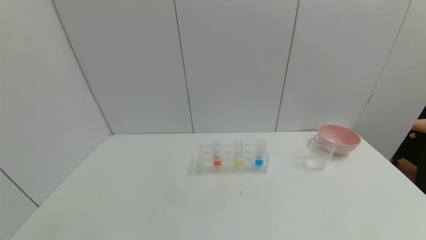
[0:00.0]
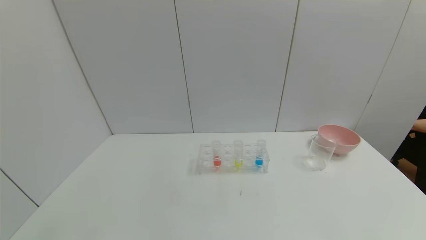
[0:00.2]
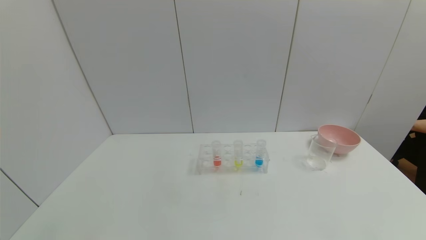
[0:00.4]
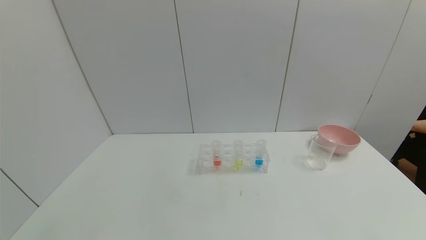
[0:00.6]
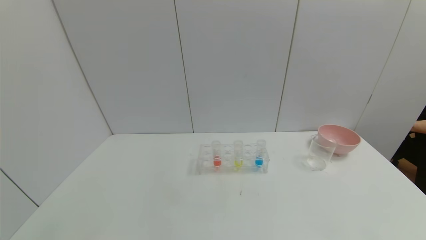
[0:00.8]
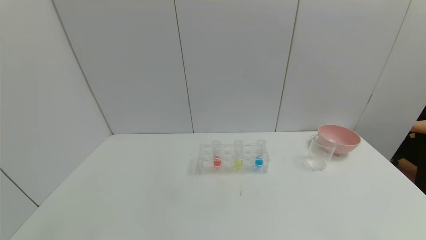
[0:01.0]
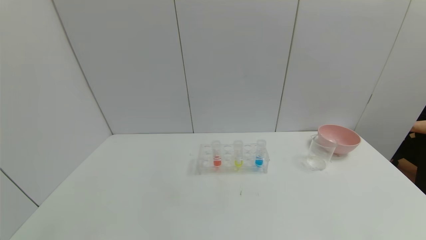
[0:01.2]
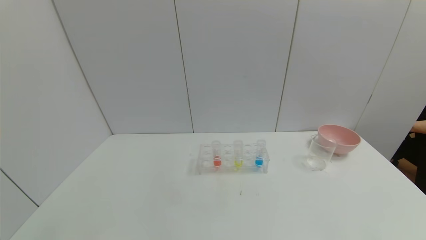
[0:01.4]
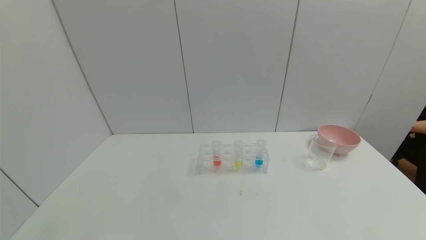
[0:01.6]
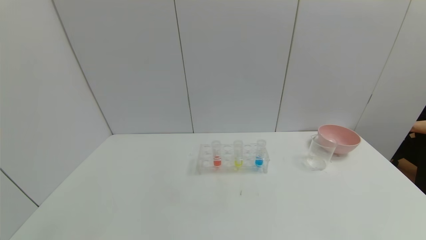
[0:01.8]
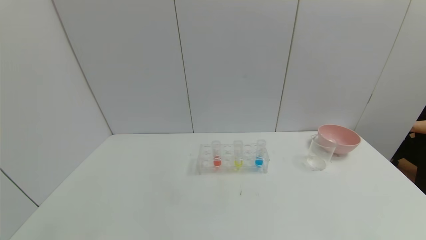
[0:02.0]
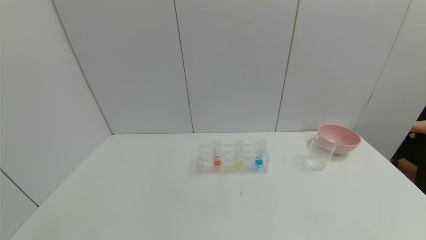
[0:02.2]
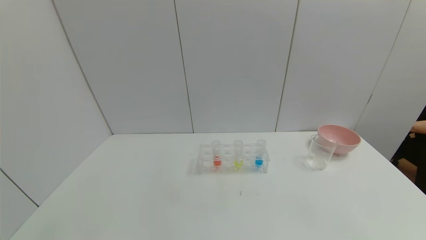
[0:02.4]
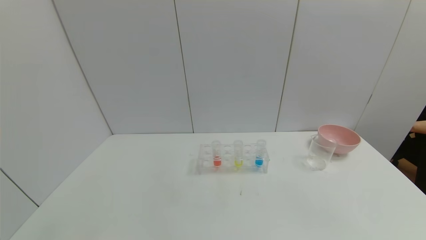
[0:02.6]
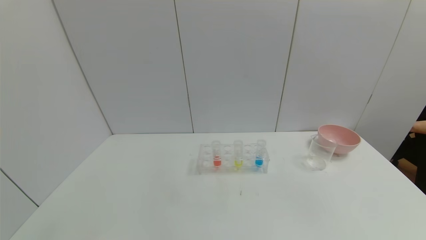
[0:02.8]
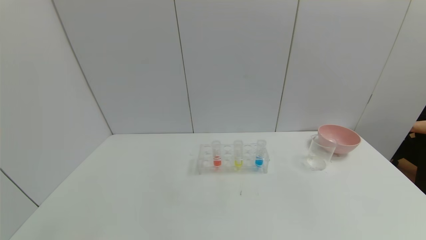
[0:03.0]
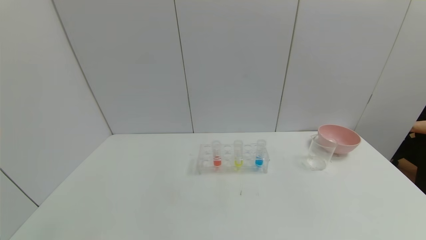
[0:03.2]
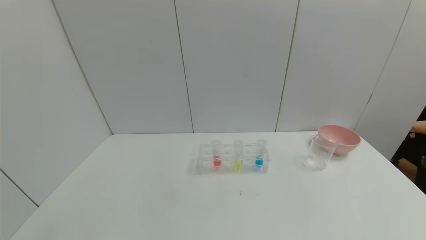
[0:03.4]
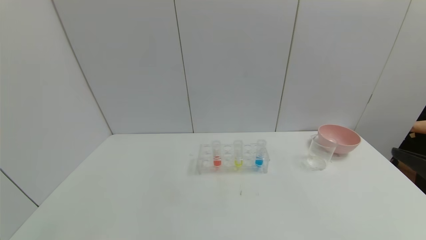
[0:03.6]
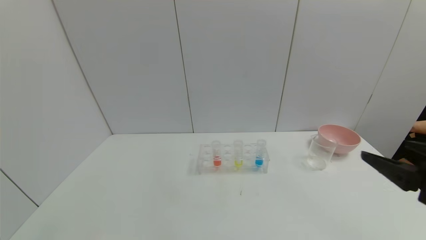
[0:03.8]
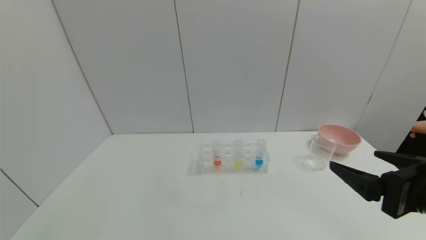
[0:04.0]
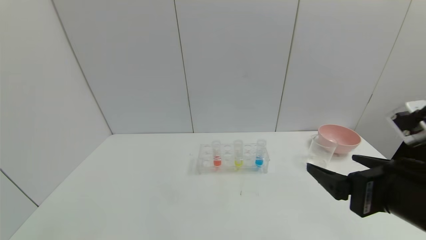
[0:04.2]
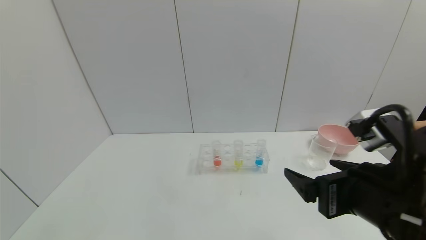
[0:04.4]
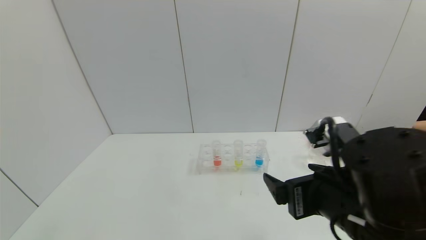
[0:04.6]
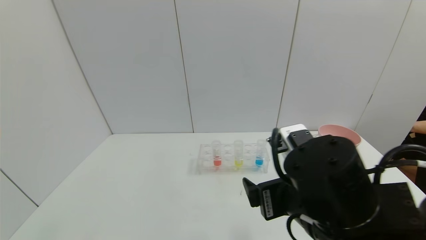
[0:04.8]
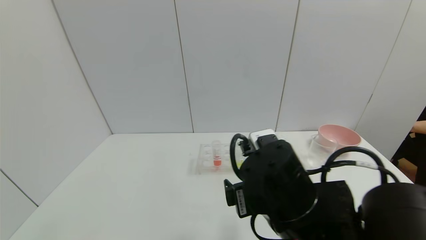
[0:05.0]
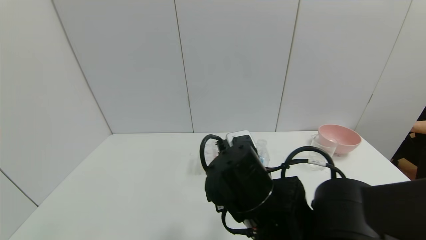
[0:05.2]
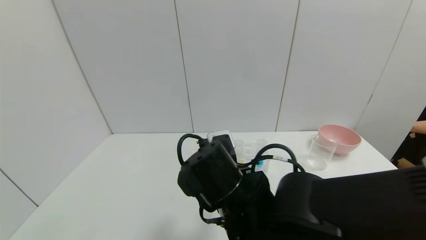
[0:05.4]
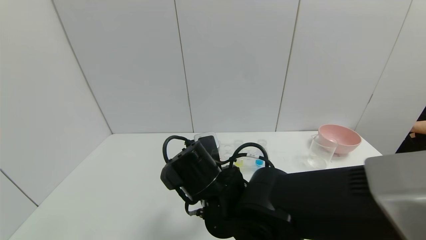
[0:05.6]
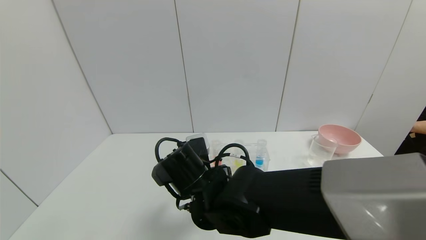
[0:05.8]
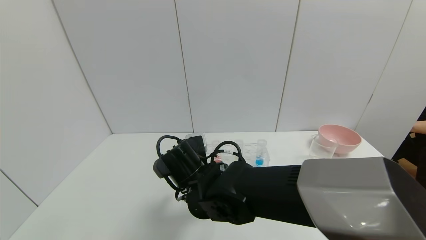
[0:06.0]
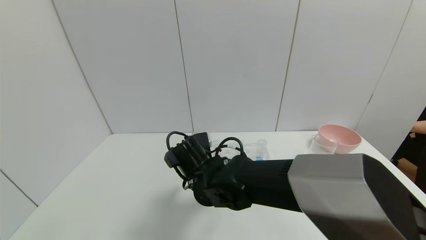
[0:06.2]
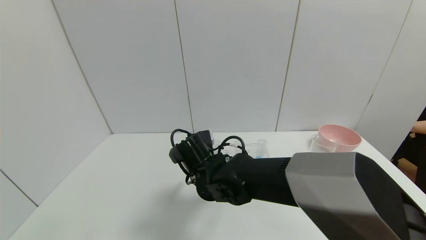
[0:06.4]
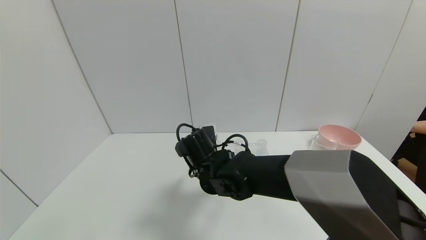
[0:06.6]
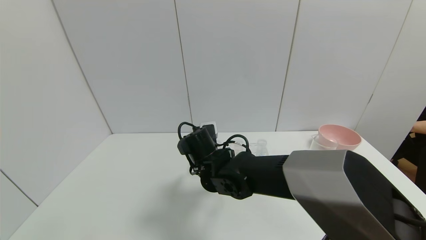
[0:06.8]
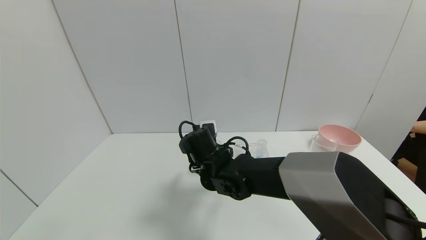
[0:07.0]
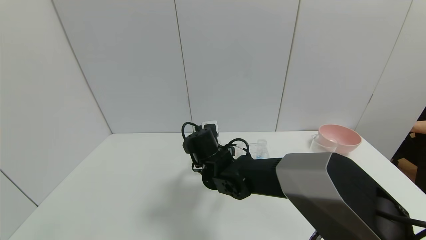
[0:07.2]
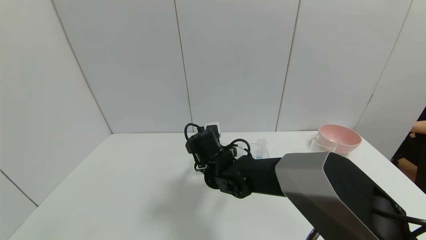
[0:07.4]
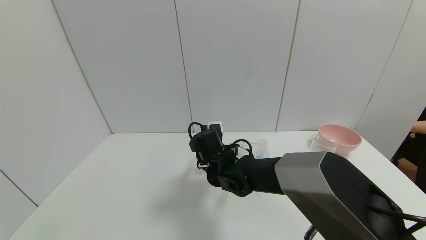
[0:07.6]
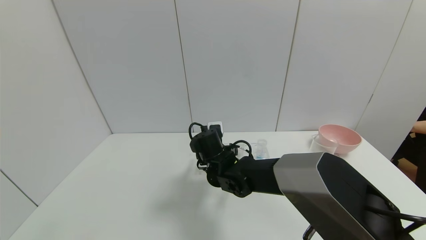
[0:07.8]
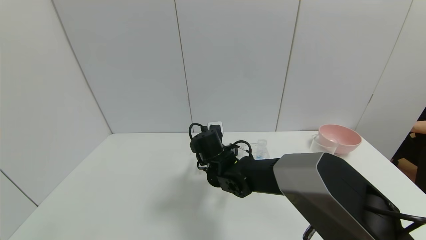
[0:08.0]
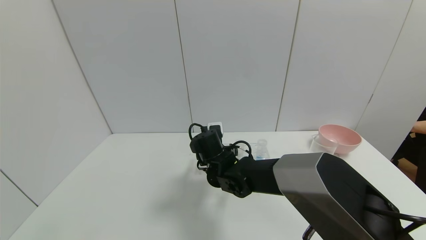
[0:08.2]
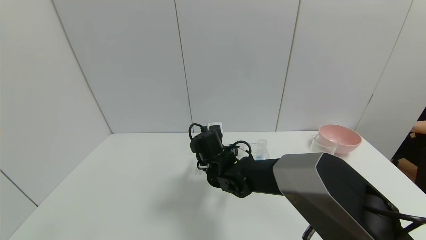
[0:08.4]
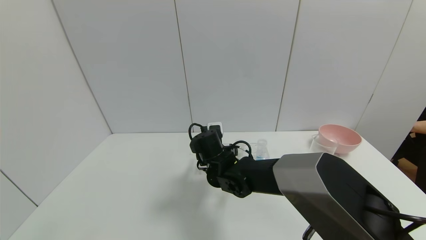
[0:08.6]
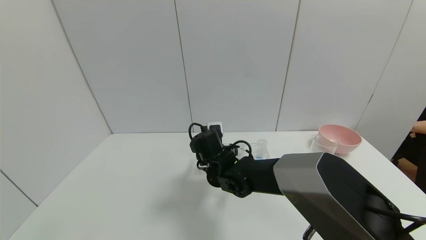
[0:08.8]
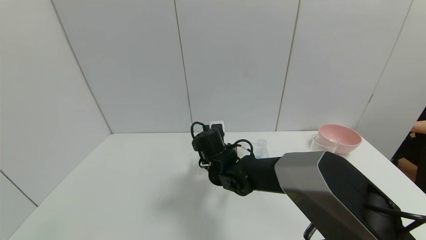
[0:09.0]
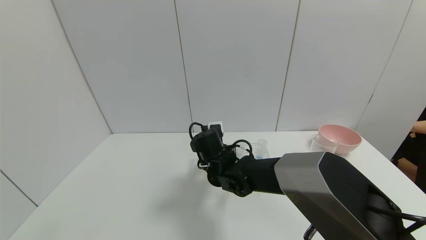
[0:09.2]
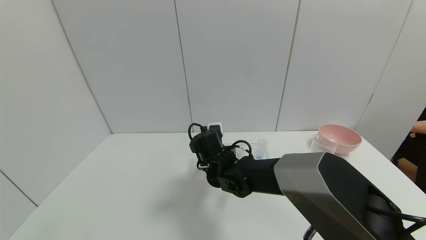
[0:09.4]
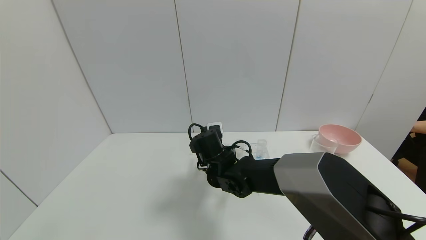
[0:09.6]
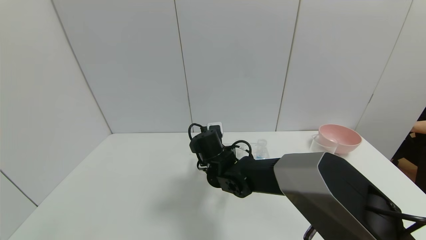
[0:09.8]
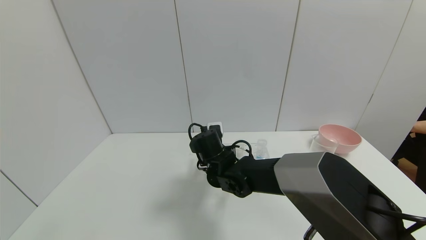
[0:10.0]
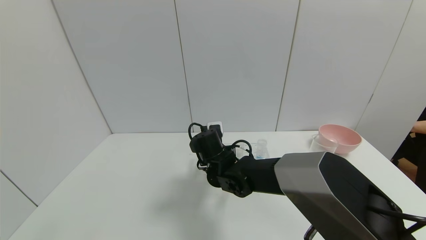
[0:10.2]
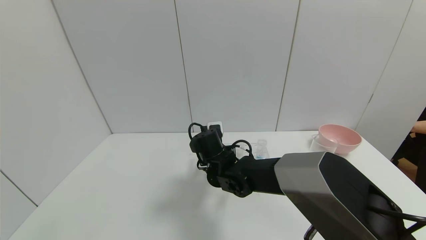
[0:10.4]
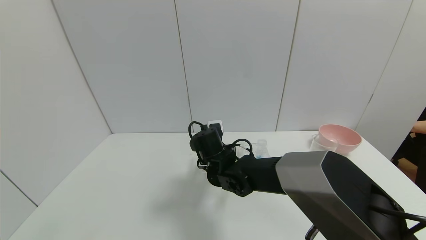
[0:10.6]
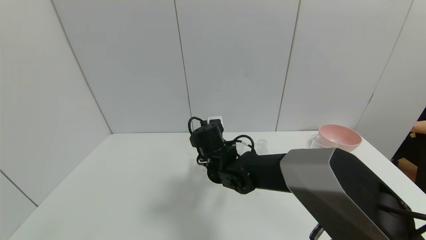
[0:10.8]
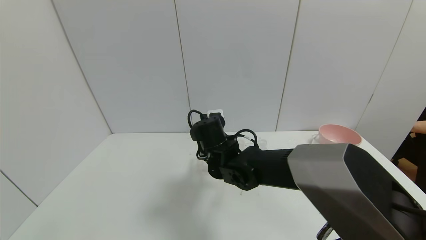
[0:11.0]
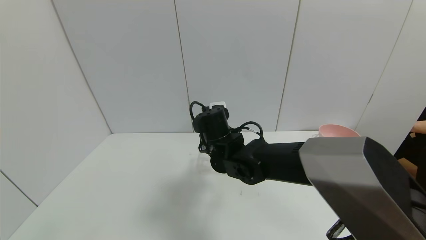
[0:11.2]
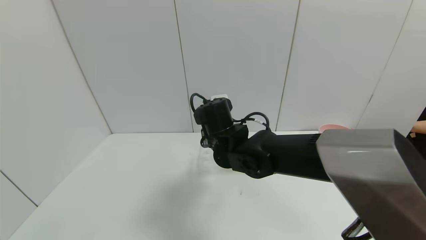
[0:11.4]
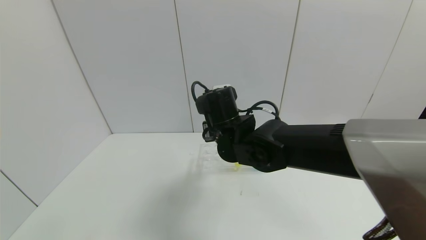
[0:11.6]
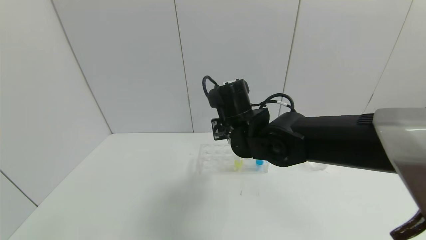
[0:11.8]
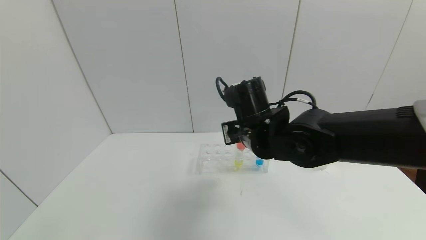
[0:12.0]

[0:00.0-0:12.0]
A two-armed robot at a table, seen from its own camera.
Task of the whole recording: pick up the test tube with yellow pigment and the test tube with red pigment by grippers and pour them into the beaker.
Step, 0:00.0 to 0:10.4: Grasp the red reagent with the right gripper.
0:00.0 to 0:01.6: Both grippers stay put.
0:03.0 to 0:04.4: The right gripper shifts some 20 cm to the left and forward.
0:04.4 to 0:06.0: The right gripper moves to the left, forward and downward, some 30 cm.
0:06.0 to 0:07.6: The right gripper goes some 10 cm forward.
0:07.6 to 0:09.0: The right gripper closes.
0:09.0 to 0:10.4: The right gripper closes its fingers.
0:10.4 to 0:12.0: The right gripper heads upward, to the right and backward, covering approximately 15 cm.

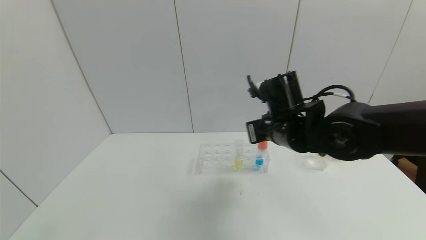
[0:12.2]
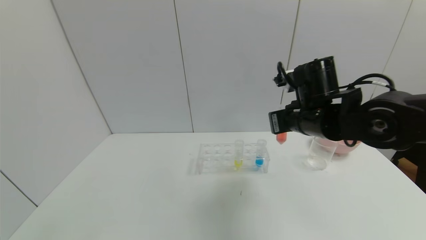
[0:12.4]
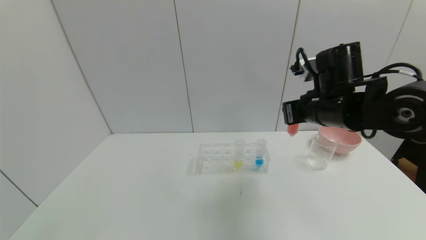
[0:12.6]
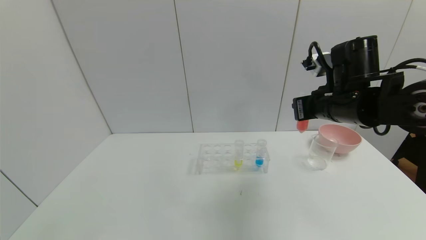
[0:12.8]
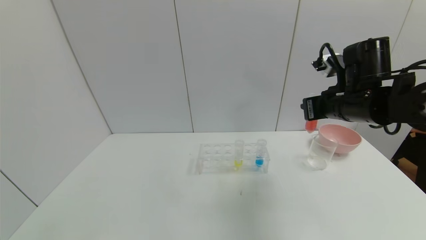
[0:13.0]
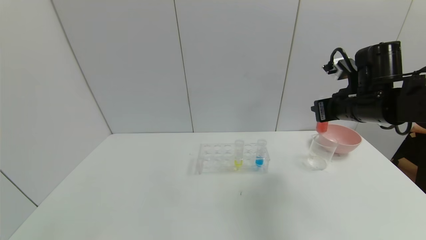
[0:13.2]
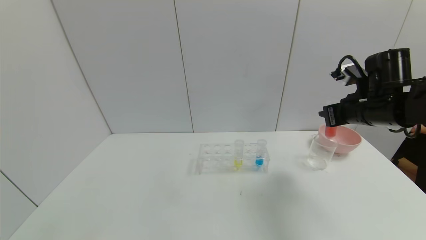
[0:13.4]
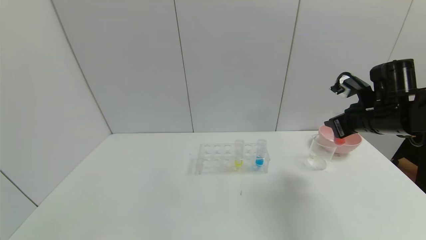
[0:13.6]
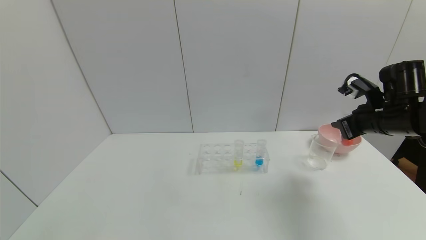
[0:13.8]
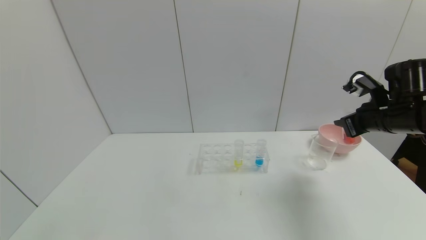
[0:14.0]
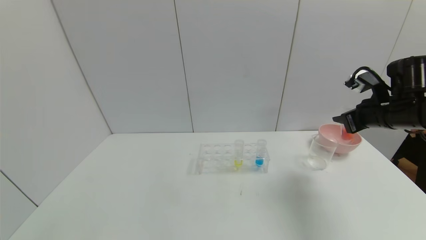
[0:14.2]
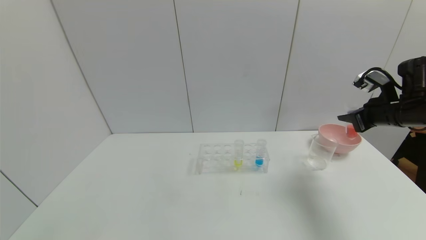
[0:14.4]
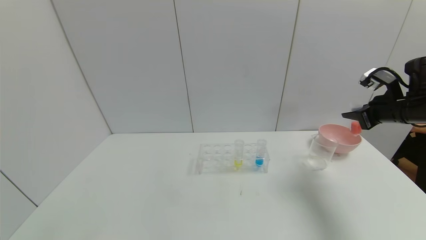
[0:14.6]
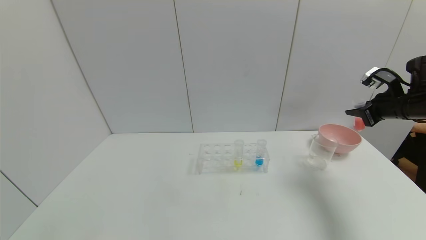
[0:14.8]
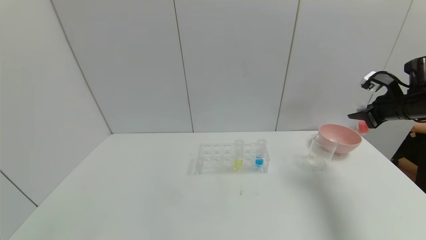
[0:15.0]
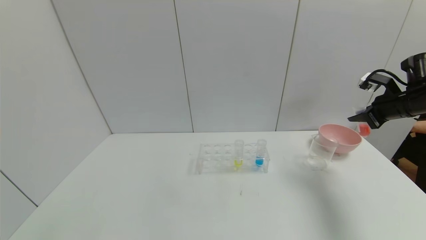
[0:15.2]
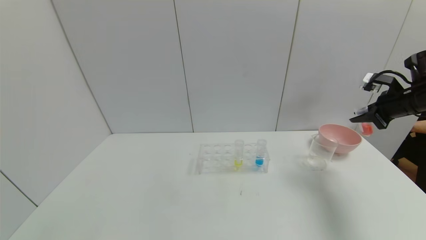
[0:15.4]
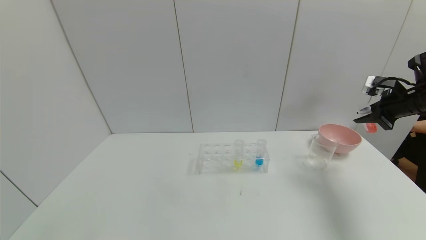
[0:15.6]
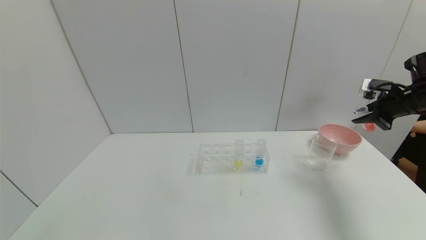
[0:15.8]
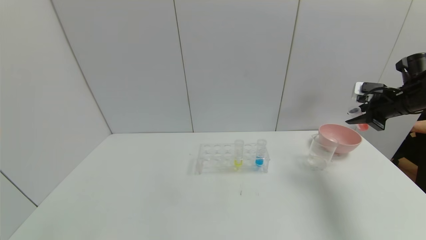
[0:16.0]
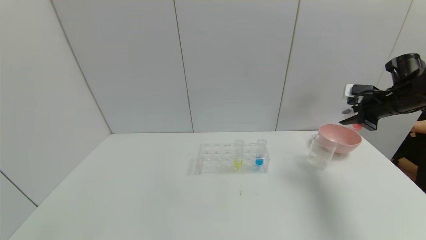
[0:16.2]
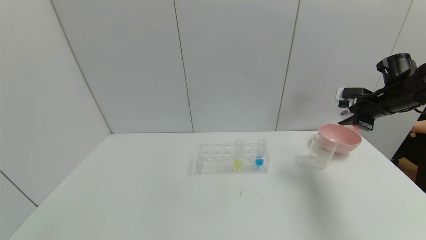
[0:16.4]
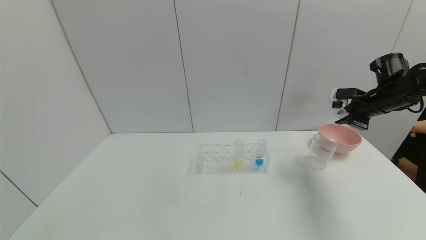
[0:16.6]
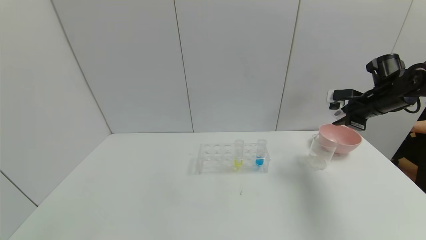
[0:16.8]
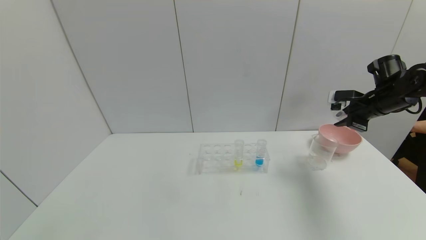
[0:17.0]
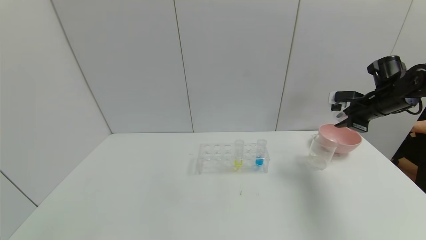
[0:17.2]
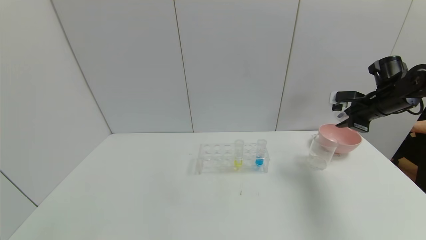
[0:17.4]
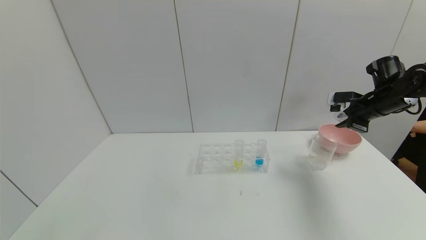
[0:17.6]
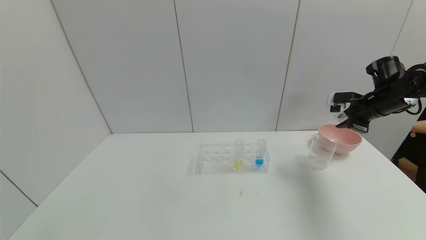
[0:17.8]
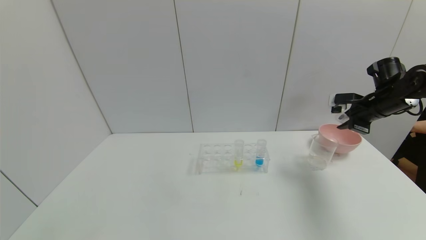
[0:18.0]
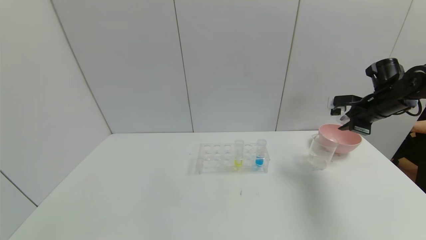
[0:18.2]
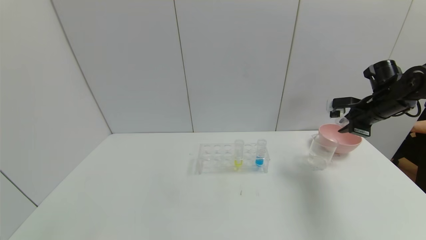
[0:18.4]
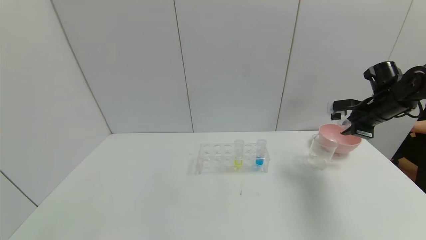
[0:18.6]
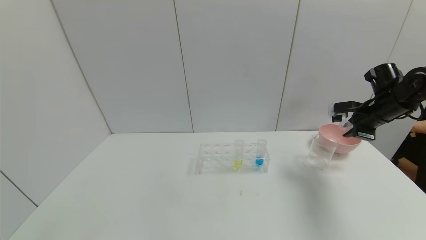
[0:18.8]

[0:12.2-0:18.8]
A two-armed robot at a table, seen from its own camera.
Task of the whole recording: pick up the test tube with yellow pigment and the test tube with red pigment by grippers and pour them into the beaker.
0:12.2 to 0:13.8: The right gripper shifts some 20 cm to the right.
0:13.8 to 0:15.4: The right gripper goes some 15 cm to the right and forward.
0:15.4 to 0:17.2: The right gripper shifts by roughly 5 cm.
0:17.2 to 0:18.8: The grippers stay close to where they were, moving slightly.
